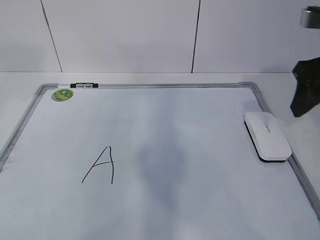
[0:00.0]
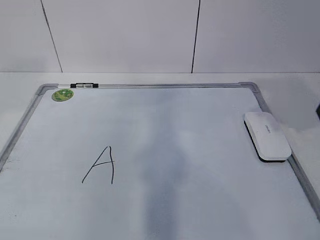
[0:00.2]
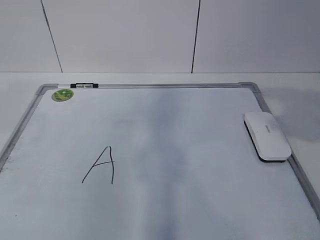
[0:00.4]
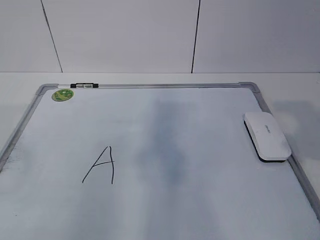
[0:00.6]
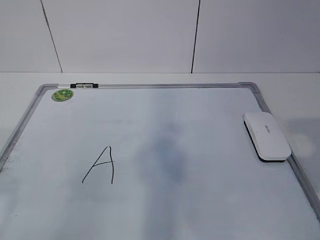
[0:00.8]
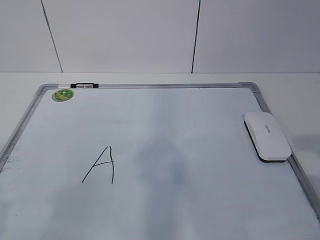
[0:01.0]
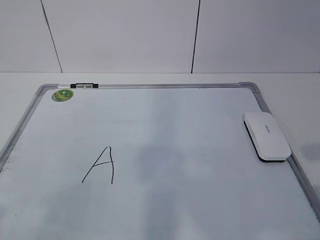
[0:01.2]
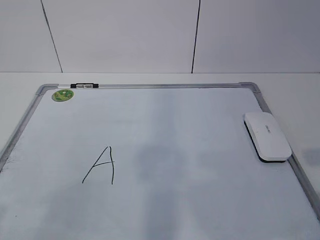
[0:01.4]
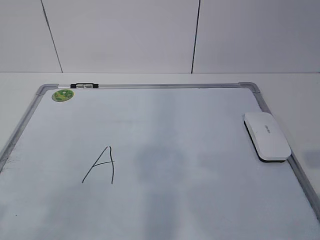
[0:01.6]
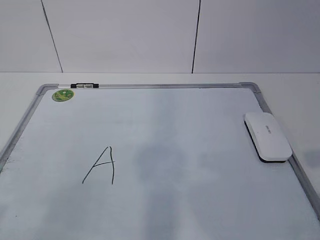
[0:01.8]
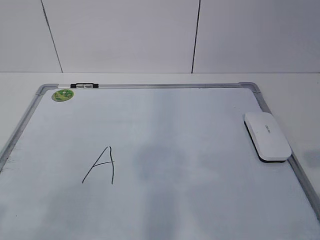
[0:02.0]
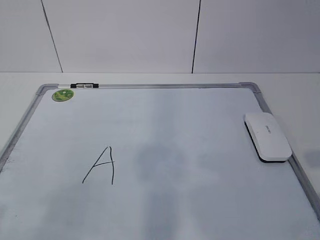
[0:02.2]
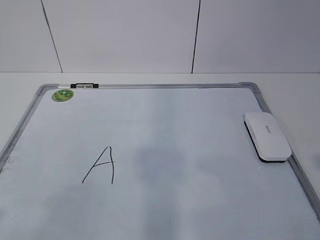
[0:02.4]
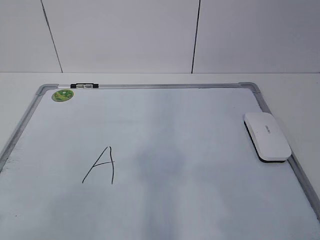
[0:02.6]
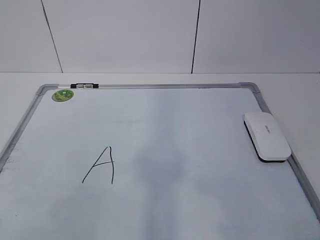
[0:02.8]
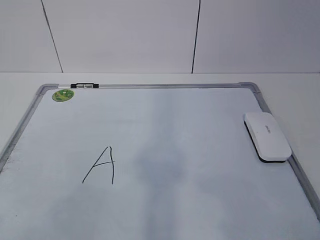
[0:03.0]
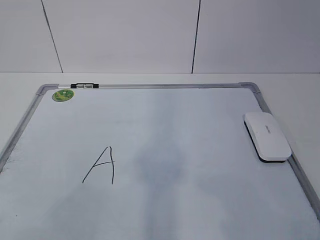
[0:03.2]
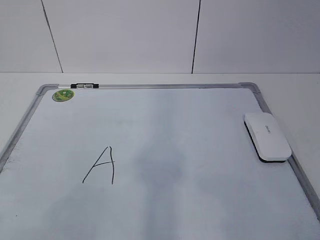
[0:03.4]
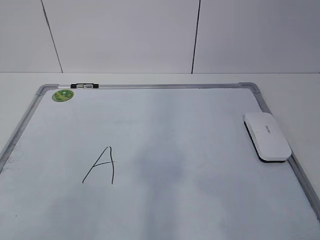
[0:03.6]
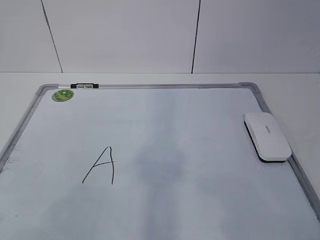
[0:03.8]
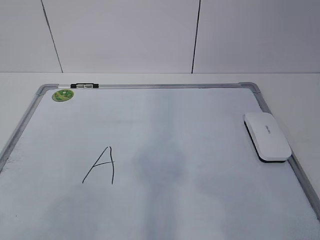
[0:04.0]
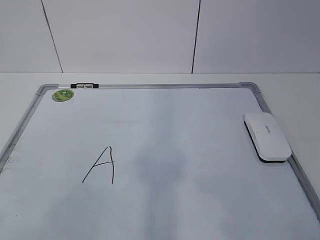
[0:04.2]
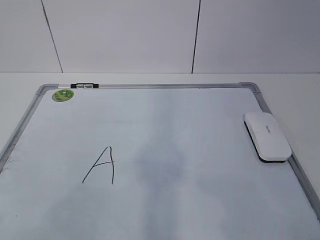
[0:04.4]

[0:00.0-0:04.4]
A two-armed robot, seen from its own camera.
Task of the whole recording: pick up the eraser on the blackboard and erase the letter "a".
0:00.0 to 0:01.4: The grippers both shift backward by approximately 25 cm.
0:03.0 to 0:04.4: Both grippers stay put.

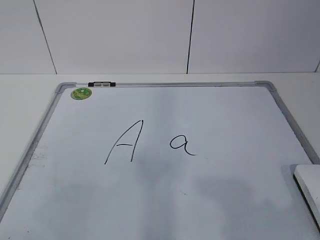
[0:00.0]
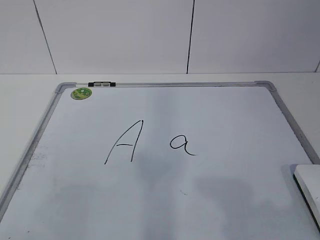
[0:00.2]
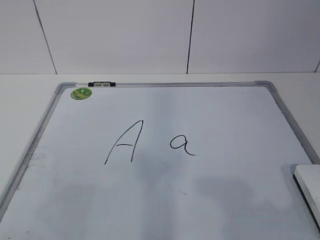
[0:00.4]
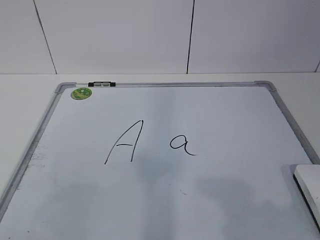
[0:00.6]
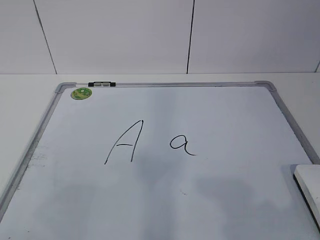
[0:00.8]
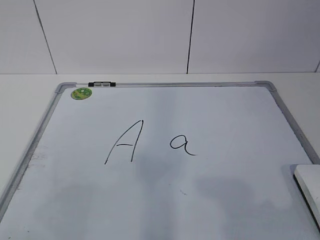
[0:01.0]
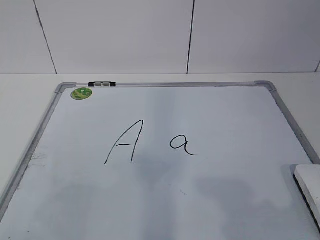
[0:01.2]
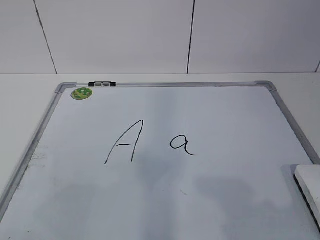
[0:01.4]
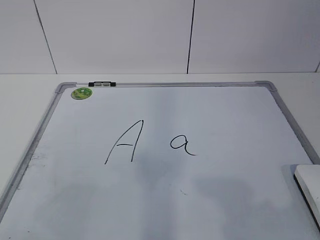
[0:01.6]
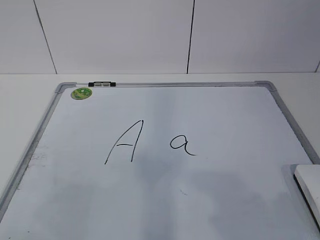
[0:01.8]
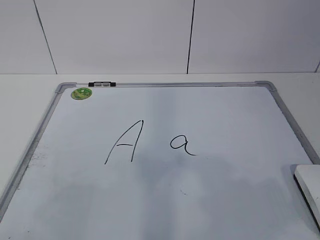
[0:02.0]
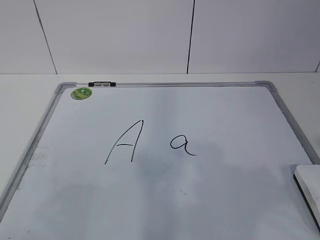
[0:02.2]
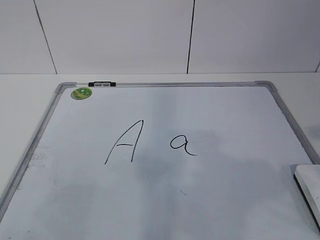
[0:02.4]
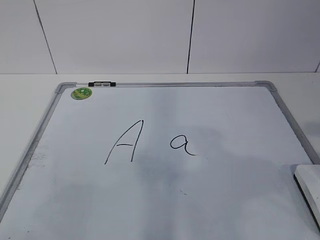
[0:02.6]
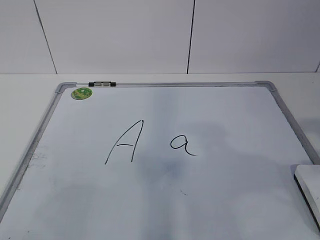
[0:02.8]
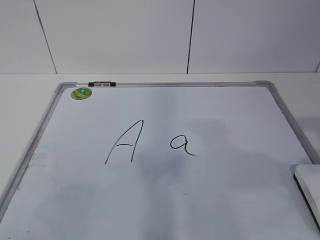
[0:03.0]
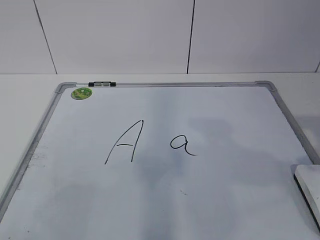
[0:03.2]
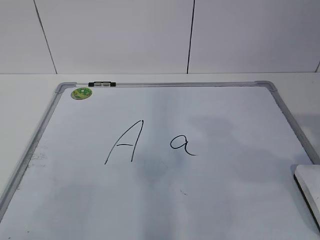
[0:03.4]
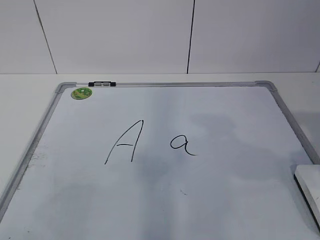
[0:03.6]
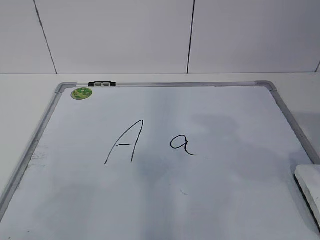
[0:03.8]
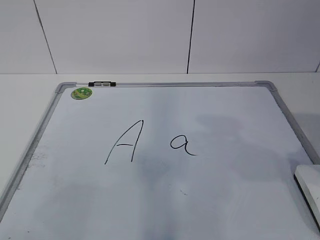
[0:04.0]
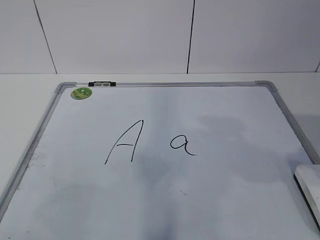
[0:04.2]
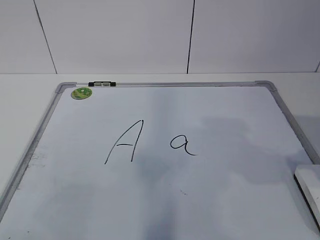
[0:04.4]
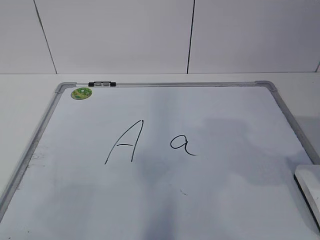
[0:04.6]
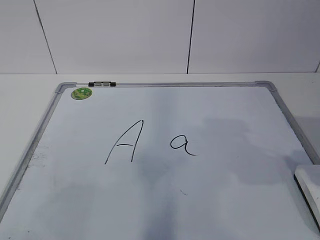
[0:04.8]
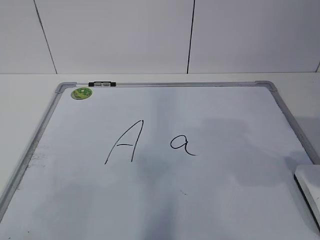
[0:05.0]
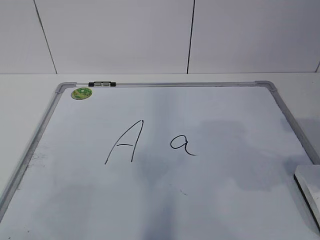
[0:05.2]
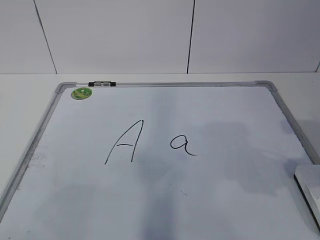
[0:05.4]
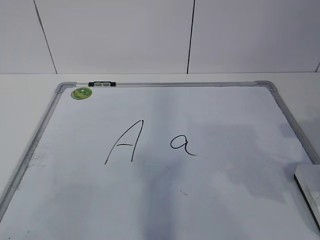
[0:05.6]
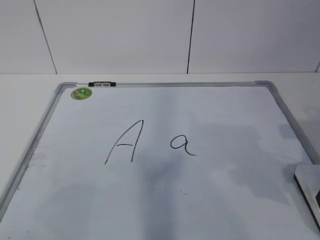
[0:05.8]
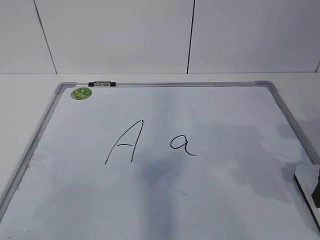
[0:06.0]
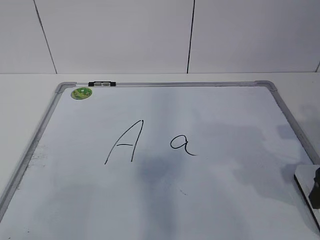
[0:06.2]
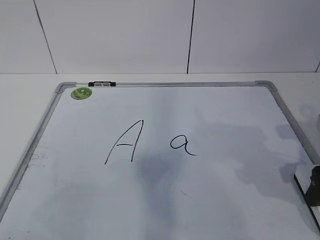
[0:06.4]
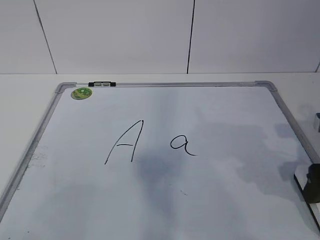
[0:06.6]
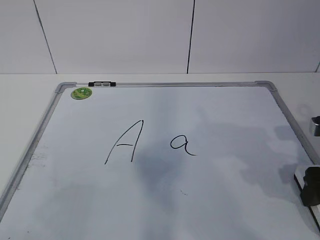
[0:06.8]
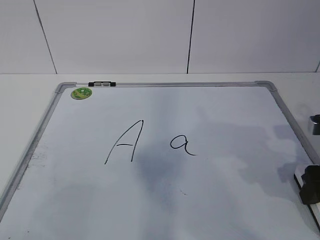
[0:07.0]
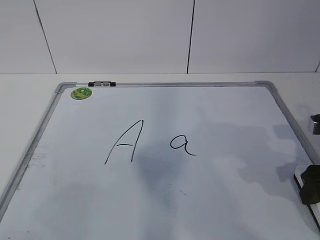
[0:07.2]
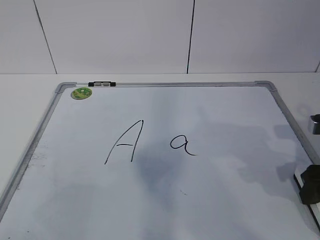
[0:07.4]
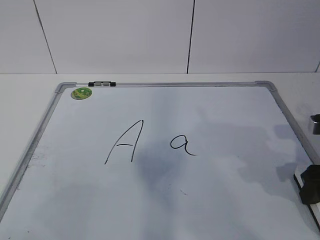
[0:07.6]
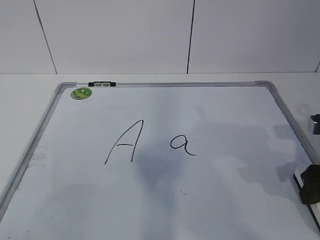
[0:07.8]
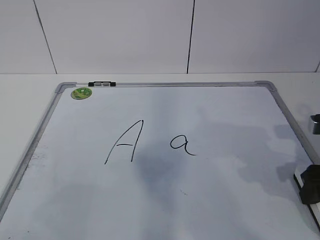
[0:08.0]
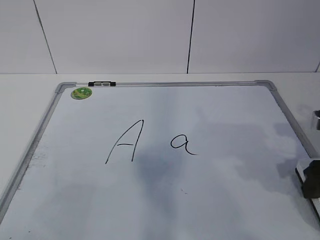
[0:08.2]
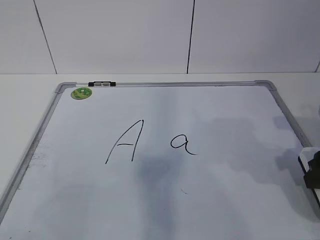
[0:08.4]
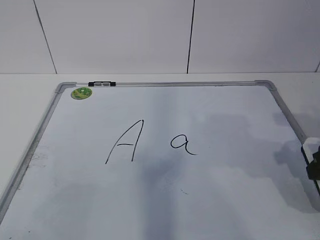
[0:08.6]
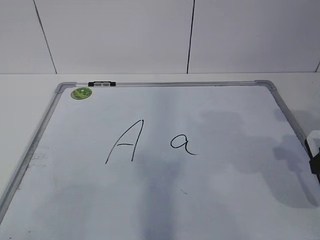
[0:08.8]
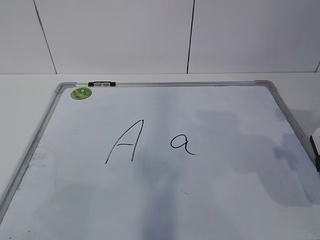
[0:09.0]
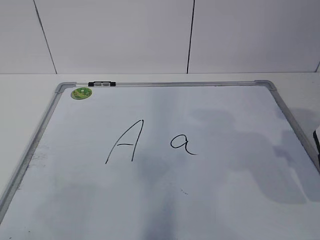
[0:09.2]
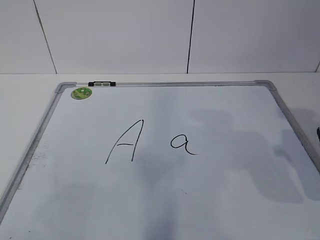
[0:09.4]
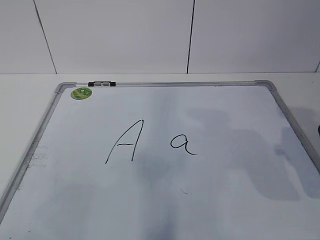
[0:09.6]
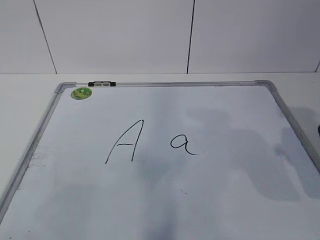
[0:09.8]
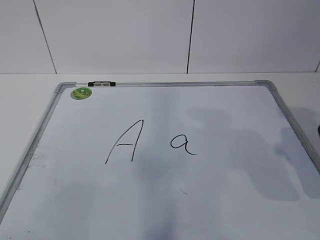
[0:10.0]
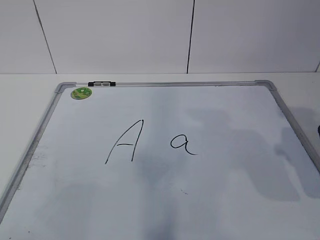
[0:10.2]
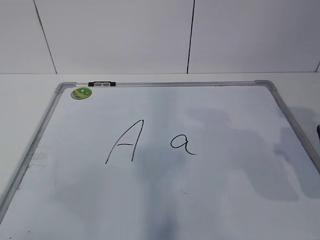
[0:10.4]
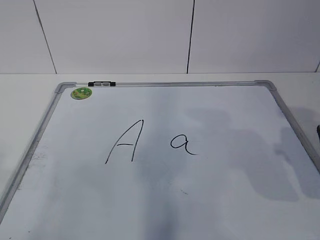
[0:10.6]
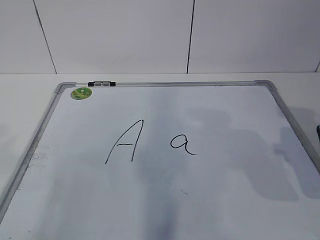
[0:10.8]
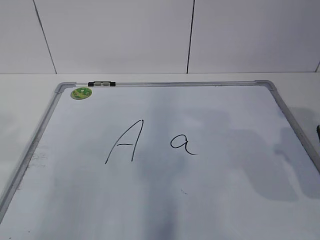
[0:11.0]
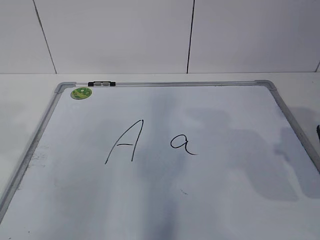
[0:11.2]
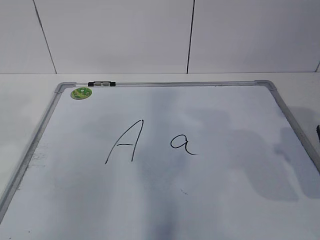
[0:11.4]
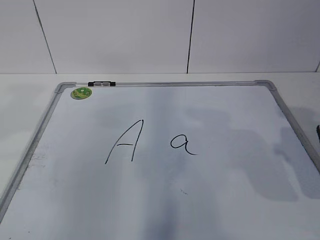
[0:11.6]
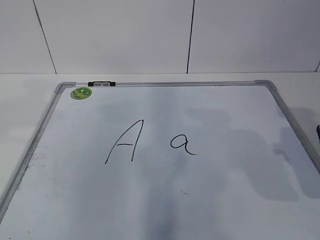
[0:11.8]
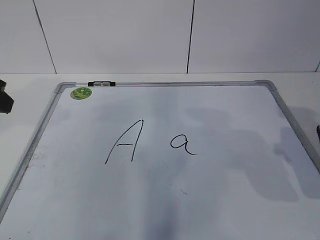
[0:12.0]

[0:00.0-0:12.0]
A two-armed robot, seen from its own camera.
Task of the whole recording: pick up the eraser on the blackboard and erase the letter "a".
0:04.4 to 0:06.0: The right gripper shifts by approximately 5 cm, and opens.
0:06.0 to 0:07.6: The right gripper closes.
0:07.6 to 0:09.0: The right gripper is displaced upward by roughly 5 cm.

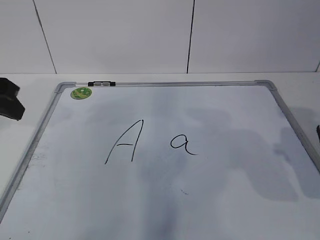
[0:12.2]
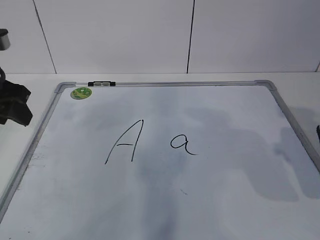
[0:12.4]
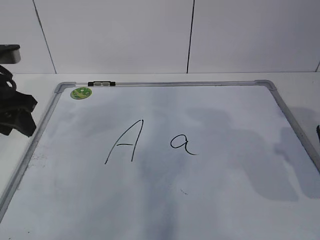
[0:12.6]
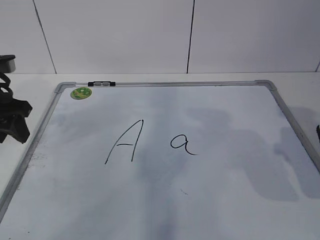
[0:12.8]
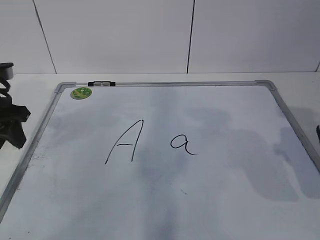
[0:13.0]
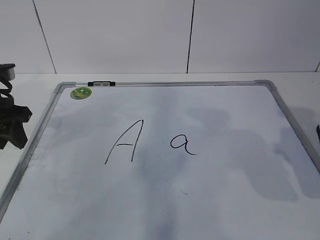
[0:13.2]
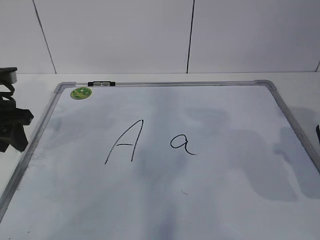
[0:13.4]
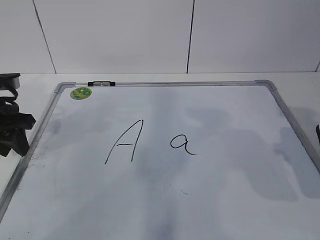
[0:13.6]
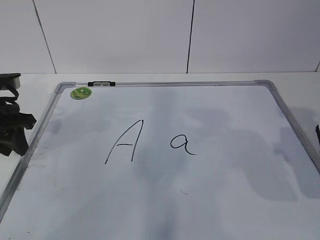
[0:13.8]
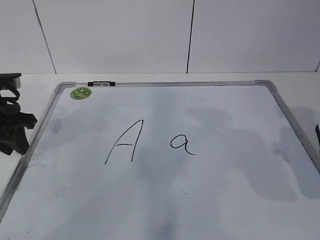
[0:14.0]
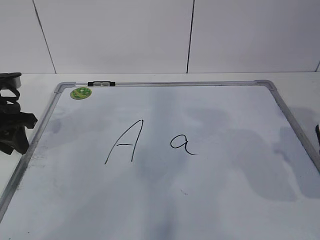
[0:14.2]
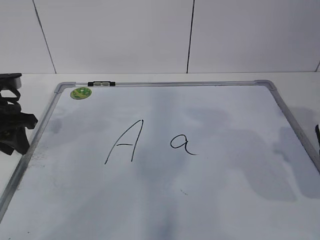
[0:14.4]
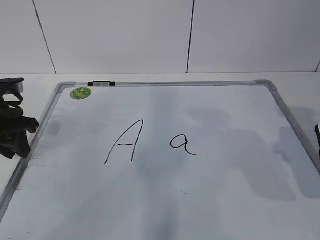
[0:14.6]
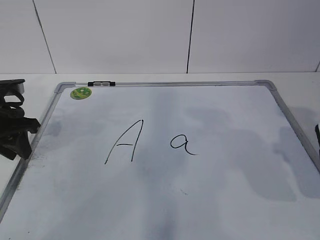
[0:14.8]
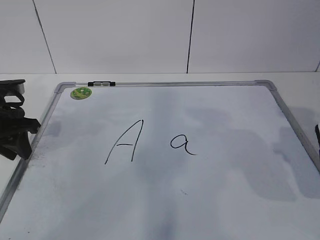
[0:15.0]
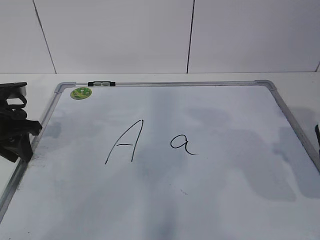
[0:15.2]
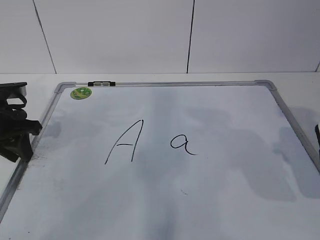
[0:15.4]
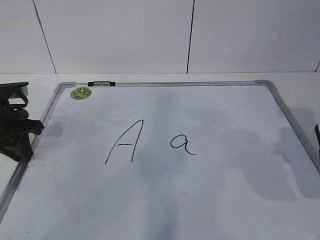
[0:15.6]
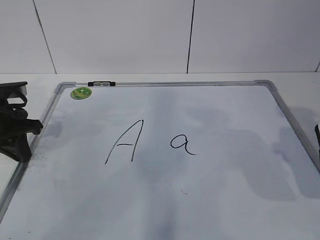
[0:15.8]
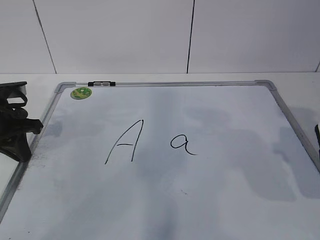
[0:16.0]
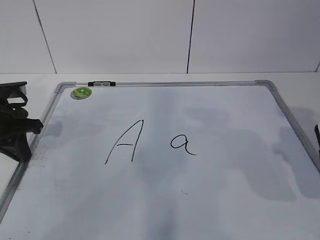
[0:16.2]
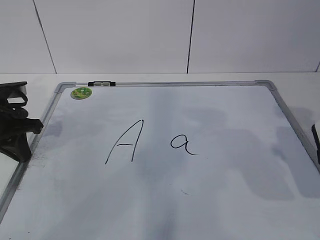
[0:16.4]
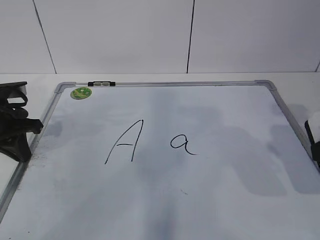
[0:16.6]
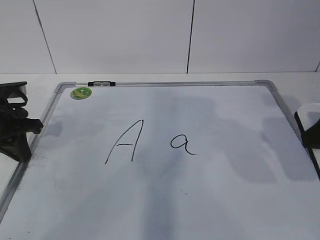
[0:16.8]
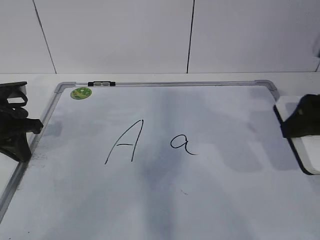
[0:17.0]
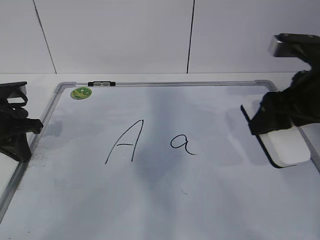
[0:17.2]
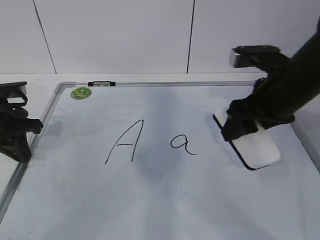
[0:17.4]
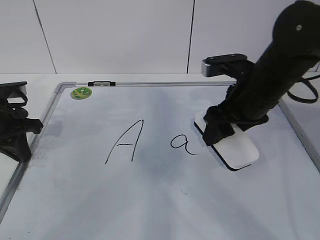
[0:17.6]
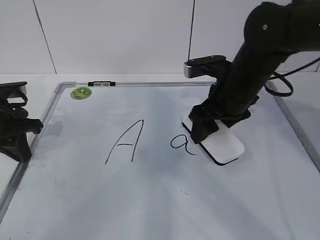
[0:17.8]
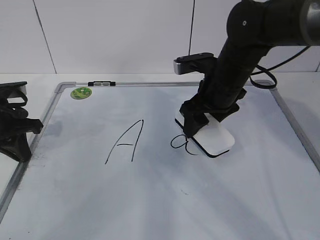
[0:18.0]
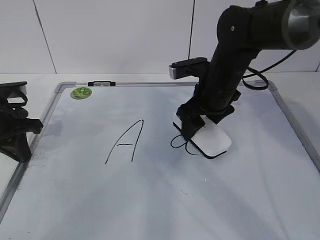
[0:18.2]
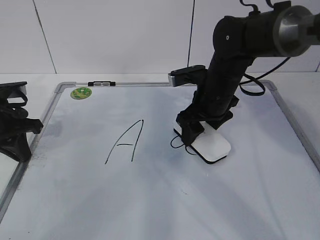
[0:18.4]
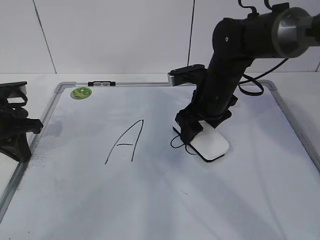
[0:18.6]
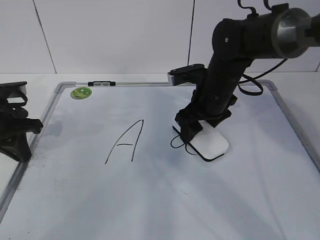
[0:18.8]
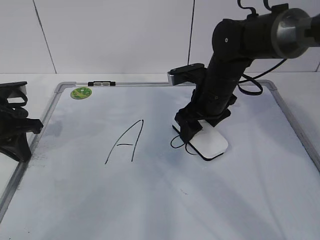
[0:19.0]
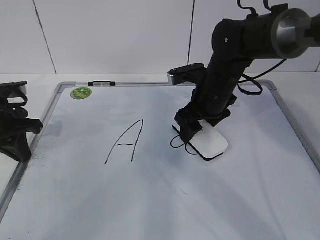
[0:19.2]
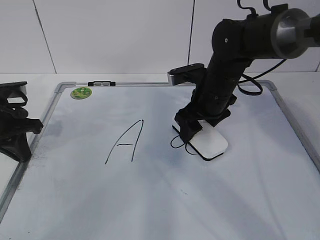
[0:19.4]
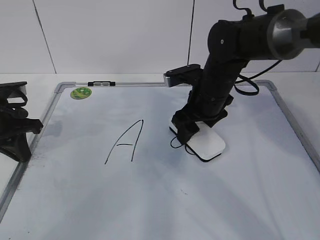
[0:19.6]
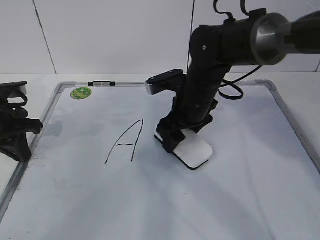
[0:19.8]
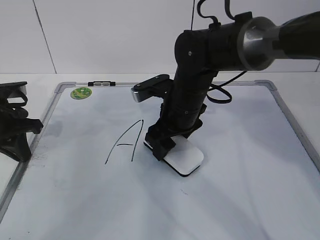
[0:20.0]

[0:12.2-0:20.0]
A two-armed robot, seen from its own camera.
Task of the whole recording: pick up the eraser on the blackboard and erase the letter "a".
Step, 0:13.2 to 0:18.8: Erase the letter a with your right hand.
0:12.2 to 0:13.8: The left gripper moves downward, approximately 10 cm.
0:13.8 to 0:16.8: The grippers stay close to where they were, moving slightly.
0:16.8 to 0:18.4: The right gripper shifts roughly 25 cm forward, to the left and downward.
0:18.4 to 0:20.0: The right gripper travels to the left by about 5 cm.
